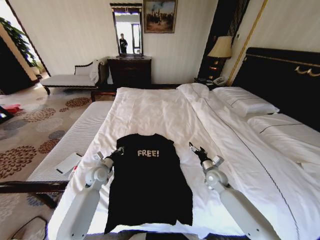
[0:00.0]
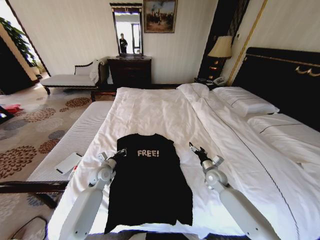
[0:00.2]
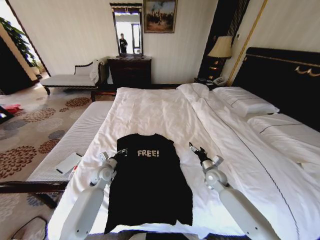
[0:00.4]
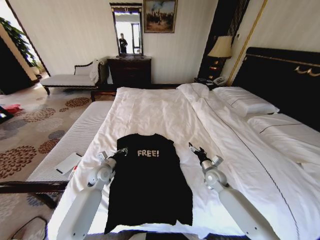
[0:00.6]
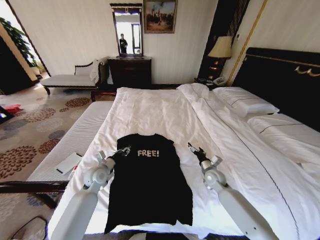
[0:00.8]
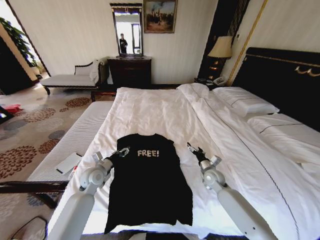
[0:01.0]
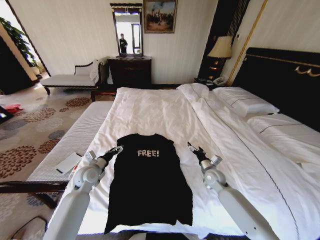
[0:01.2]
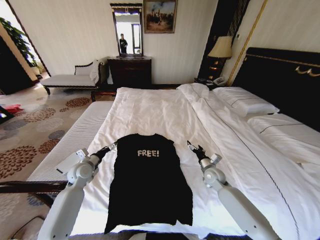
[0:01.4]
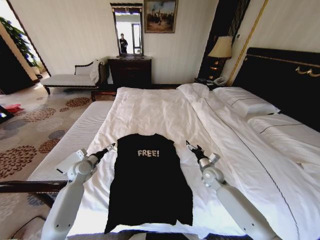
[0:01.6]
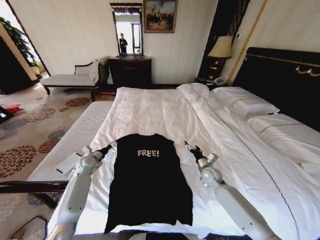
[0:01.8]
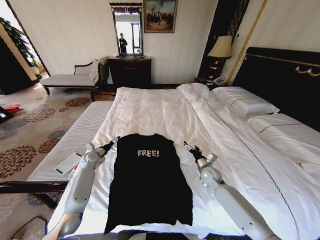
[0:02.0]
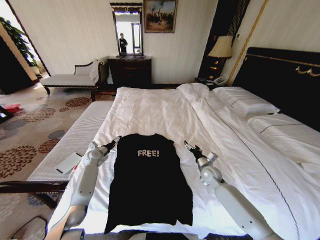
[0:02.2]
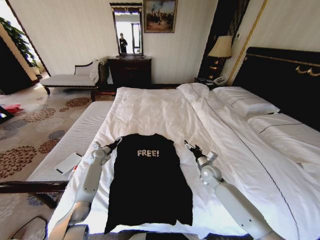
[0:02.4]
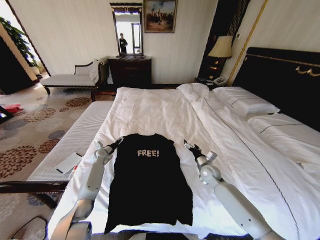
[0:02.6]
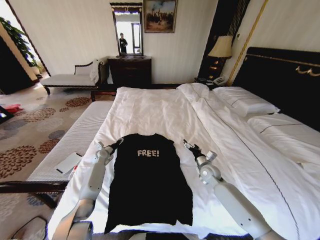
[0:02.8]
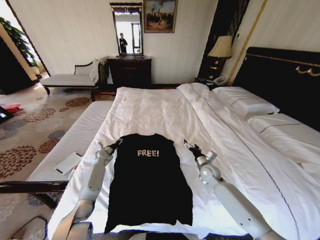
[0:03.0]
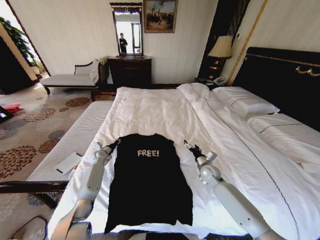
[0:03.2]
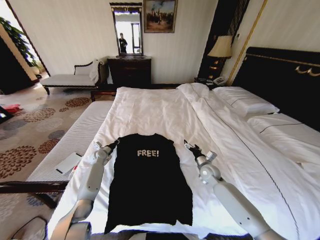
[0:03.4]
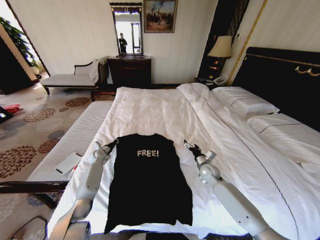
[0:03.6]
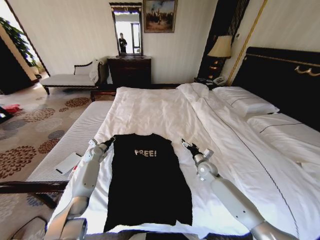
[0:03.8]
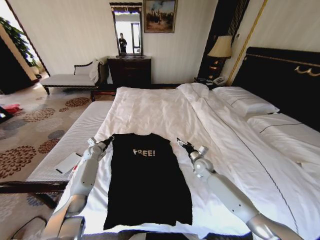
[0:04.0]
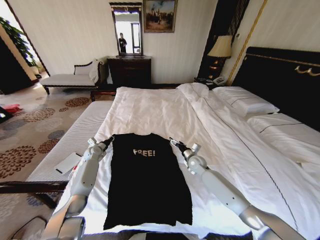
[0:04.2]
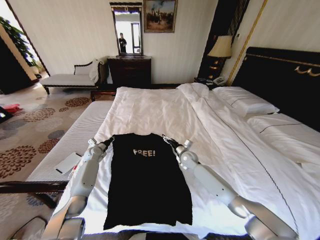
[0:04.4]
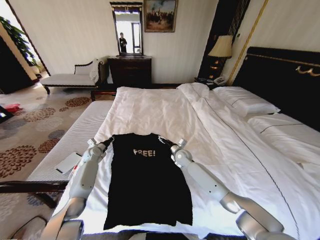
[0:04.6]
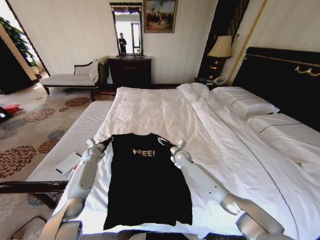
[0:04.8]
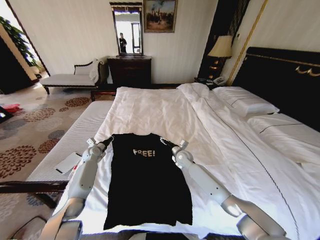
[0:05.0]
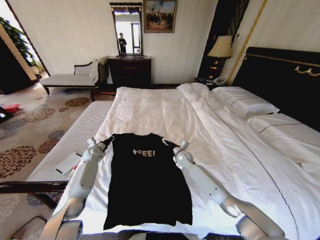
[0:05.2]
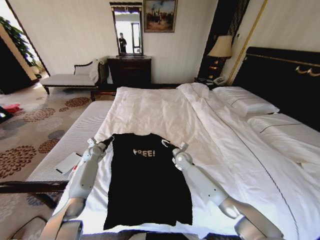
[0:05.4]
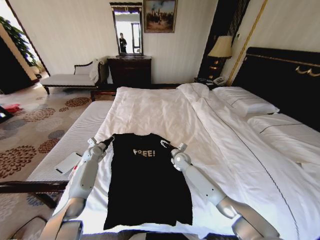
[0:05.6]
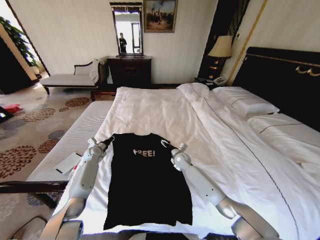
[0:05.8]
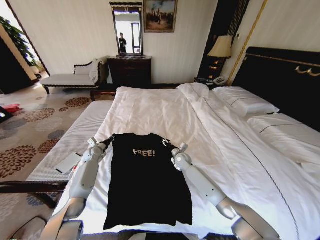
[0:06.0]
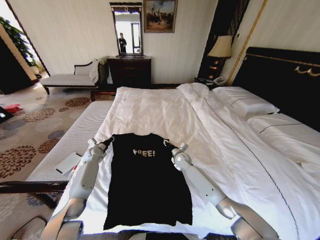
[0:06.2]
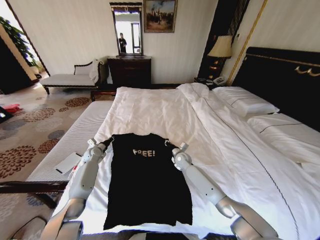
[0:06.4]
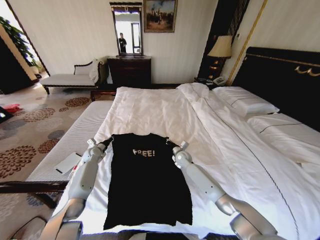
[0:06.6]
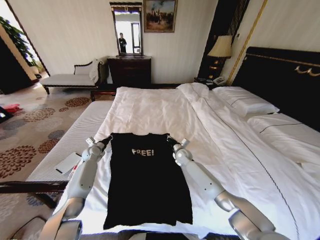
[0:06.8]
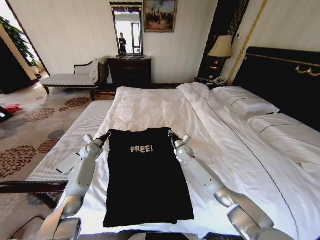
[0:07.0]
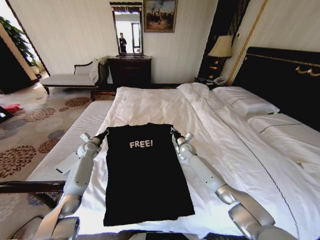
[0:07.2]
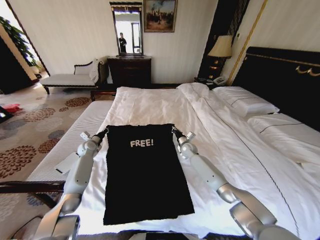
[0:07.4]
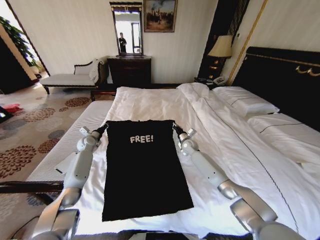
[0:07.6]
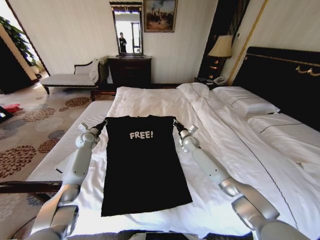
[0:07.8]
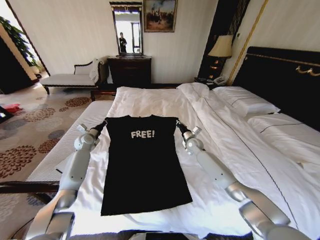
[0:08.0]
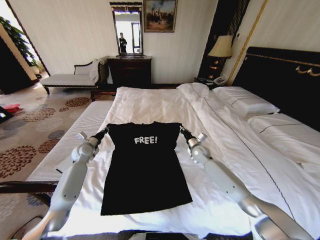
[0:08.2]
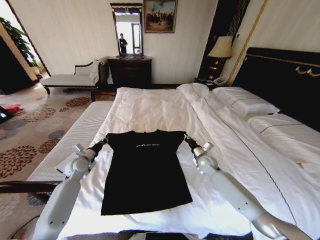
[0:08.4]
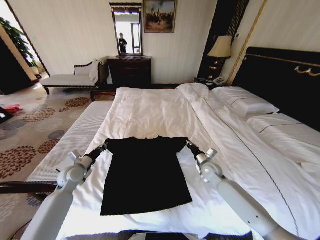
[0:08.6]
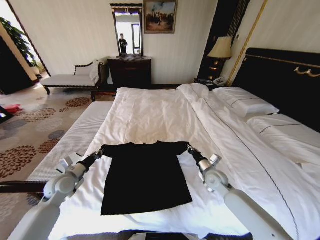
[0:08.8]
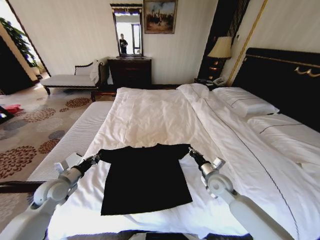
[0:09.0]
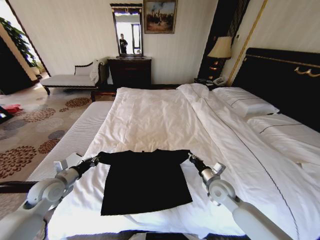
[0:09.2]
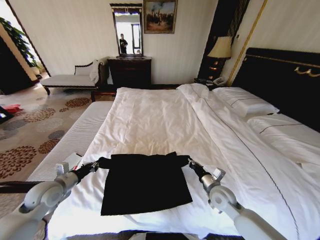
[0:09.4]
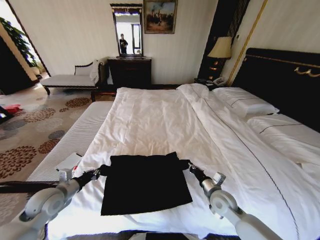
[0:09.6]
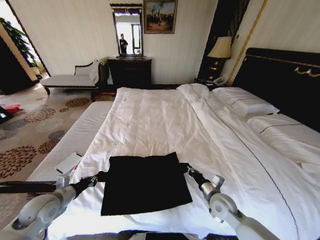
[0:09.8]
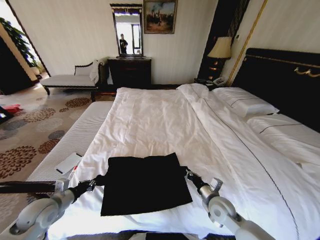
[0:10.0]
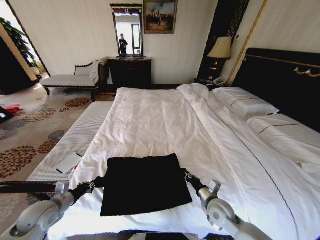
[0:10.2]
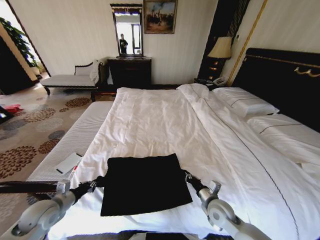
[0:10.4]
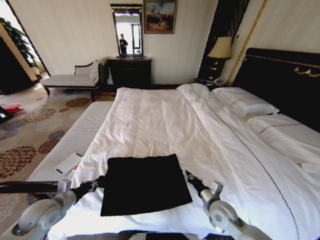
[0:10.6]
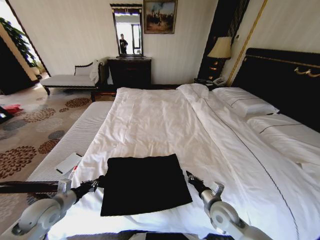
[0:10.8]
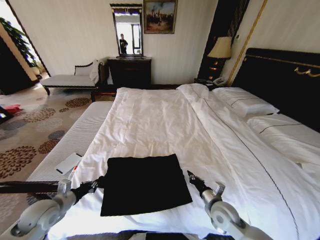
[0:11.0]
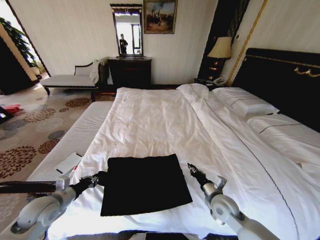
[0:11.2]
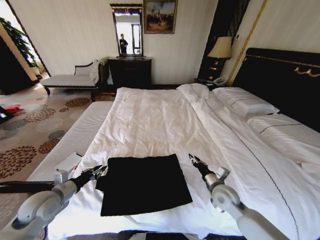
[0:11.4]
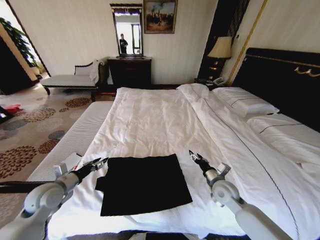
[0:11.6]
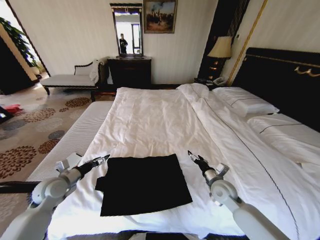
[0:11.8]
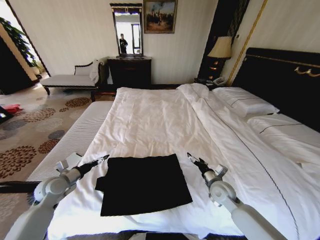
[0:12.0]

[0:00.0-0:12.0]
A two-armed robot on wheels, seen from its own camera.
Task of the whole recording: Fold the clothes on the bed.
0:00.0 to 0:01.6: The left gripper travels to the left by about 10 cm, and opens its fingers.
0:01.6 to 0:03.0: The left gripper heads forward and downward, covering approximately 15 cm, and closes its fingers.
0:03.0 to 0:04.4: The right gripper is displaced to the left and forward by roughly 10 cm, while the left gripper closes up.
0:04.4 to 0:06.0: The grippers make only small movements.
0:06.0 to 0:07.6: The right gripper goes some 10 cm forward and to the right, and closes; the left gripper shifts some 5 cm upward.
0:07.6 to 0:09.0: Both grippers move backward, roughly 25 cm.
0:09.0 to 0:10.4: Both grippers move backward, about 10 cm.
0:10.4 to 0:12.0: The grippers both shift forward by some 10 cm. The right gripper opens up. The left gripper opens.

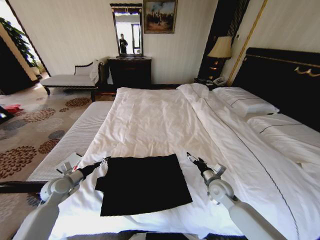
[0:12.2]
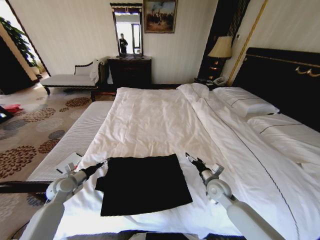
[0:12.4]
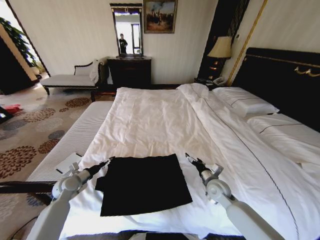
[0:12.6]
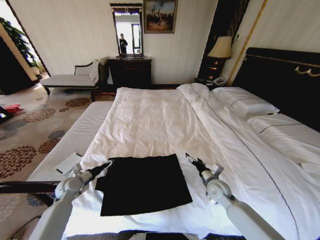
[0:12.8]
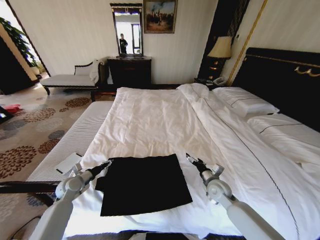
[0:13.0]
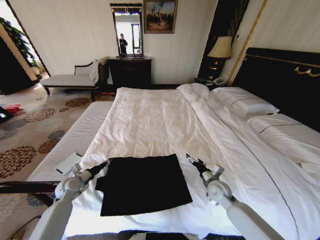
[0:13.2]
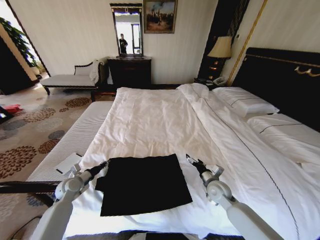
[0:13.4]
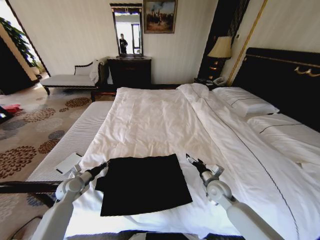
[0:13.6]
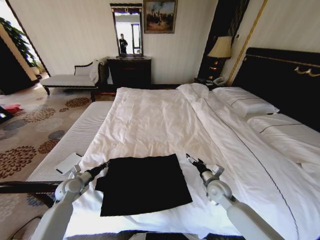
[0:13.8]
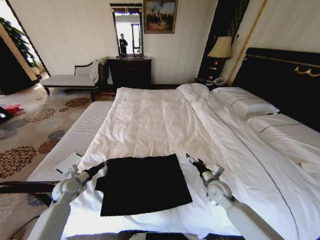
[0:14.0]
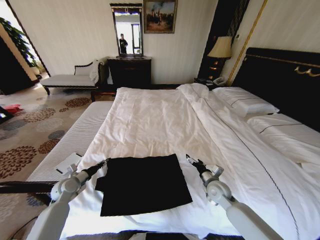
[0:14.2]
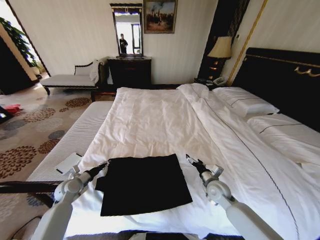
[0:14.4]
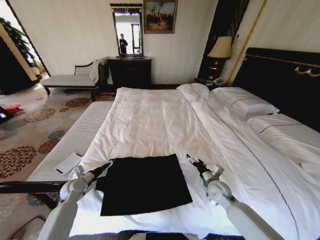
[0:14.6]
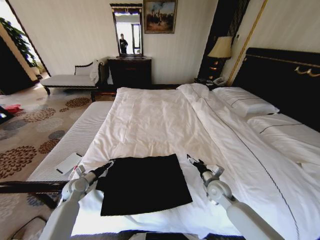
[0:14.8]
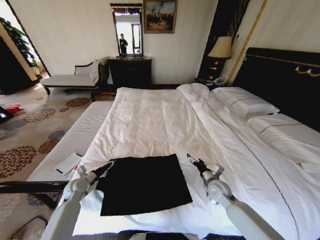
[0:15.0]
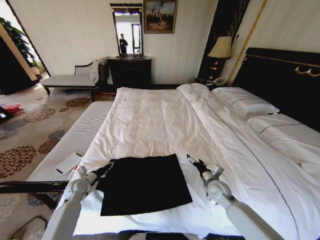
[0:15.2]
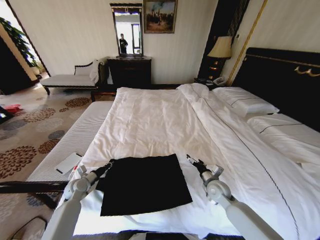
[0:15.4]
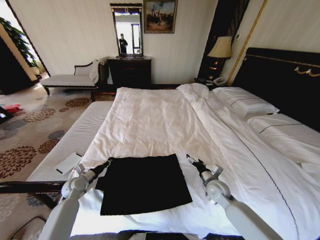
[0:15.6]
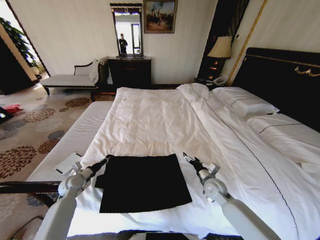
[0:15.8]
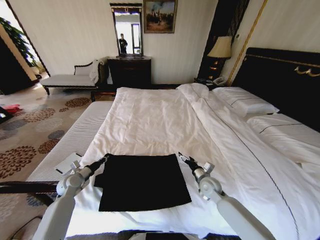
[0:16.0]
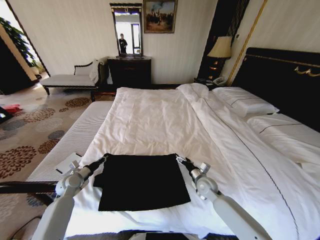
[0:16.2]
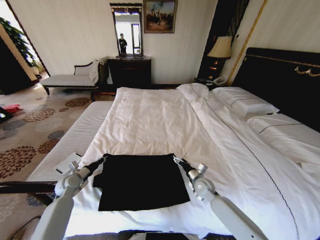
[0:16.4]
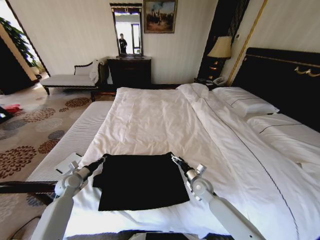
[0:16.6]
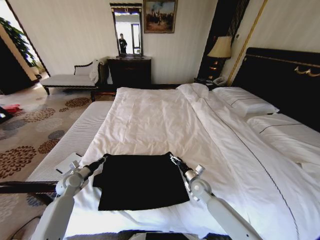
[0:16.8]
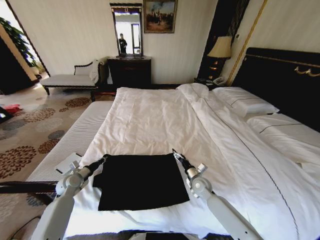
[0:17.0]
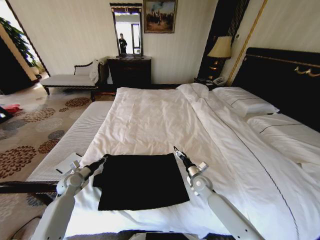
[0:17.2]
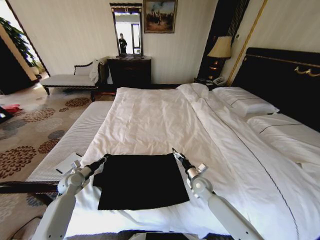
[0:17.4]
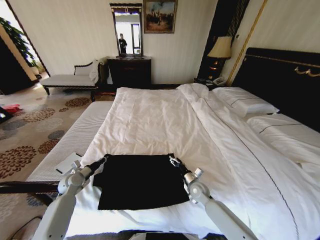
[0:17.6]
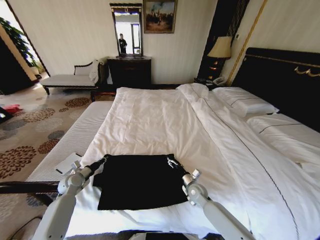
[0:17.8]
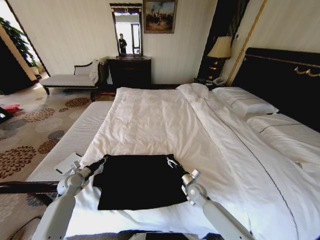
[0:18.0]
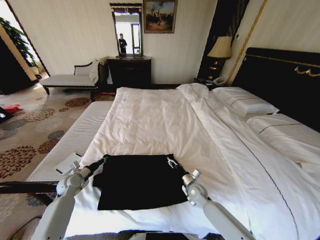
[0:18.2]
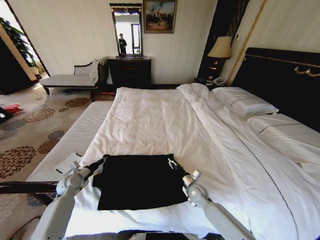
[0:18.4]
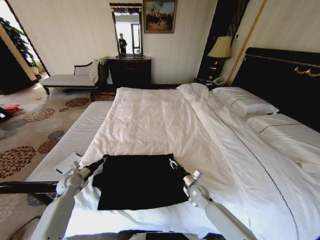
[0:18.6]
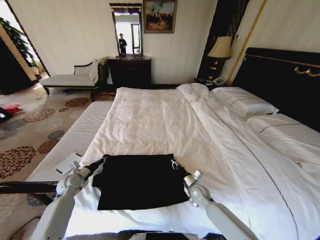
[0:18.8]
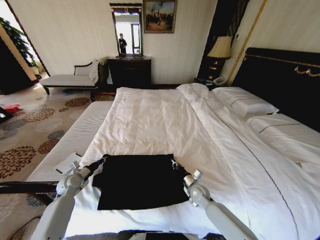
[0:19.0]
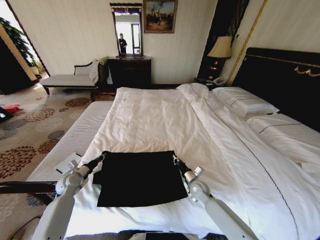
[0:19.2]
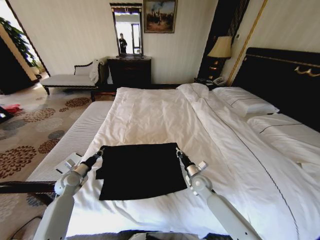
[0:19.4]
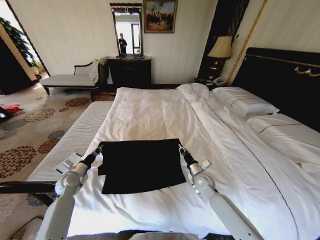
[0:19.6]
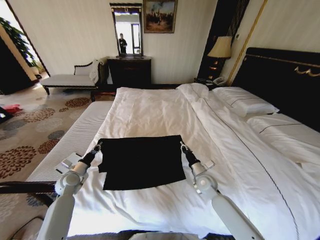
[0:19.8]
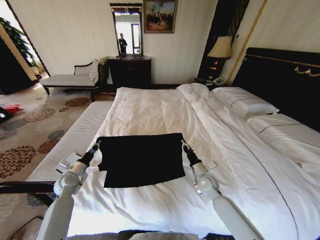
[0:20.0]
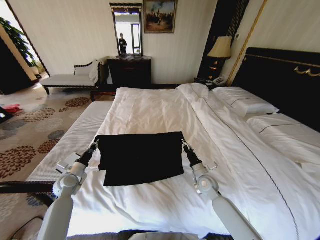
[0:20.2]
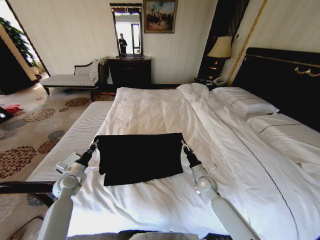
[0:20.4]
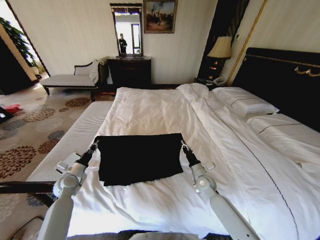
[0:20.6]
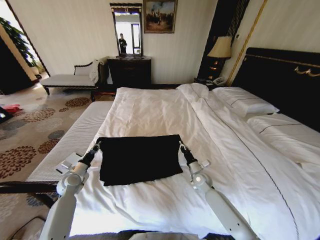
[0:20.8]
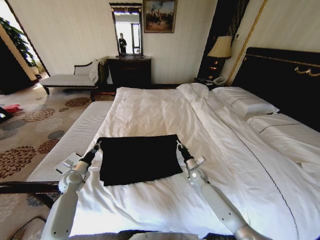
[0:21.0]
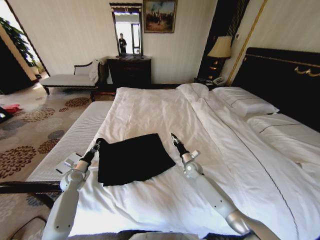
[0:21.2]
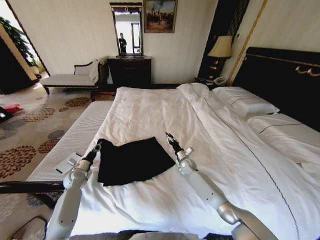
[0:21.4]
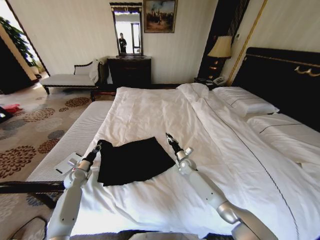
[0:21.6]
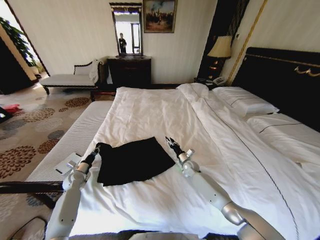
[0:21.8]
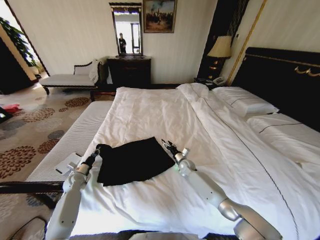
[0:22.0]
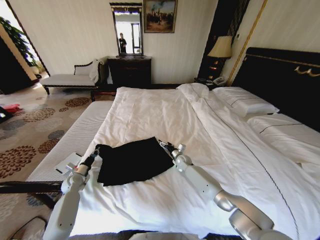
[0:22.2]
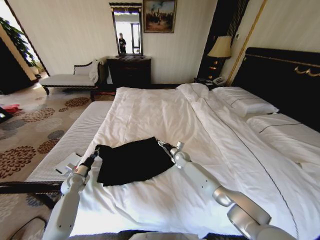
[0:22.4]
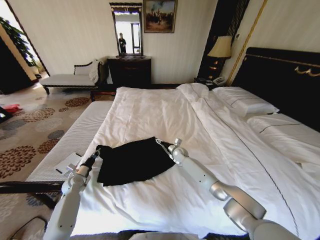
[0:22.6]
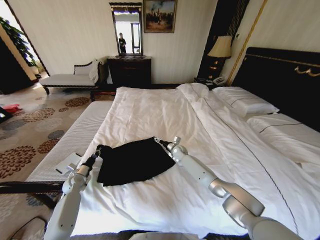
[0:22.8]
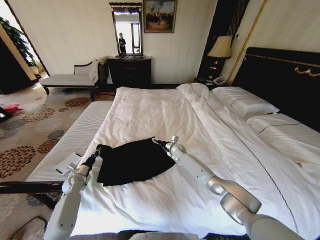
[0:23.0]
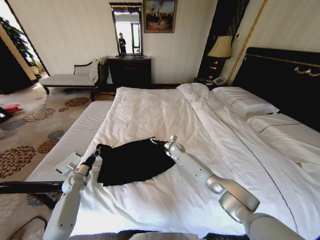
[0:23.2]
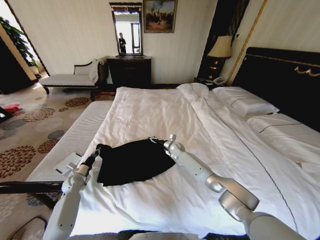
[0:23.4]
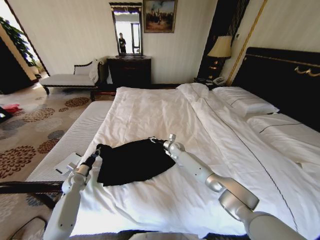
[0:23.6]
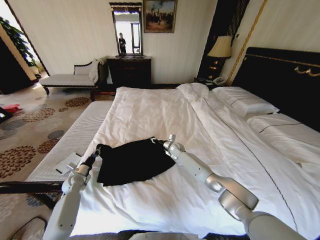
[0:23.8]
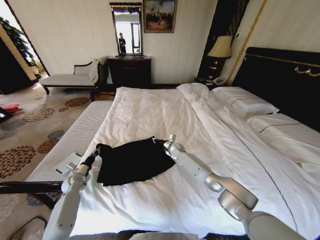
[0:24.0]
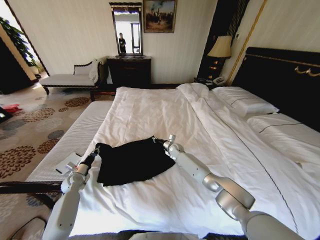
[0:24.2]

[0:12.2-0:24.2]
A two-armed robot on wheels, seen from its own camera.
Task of the whole recording: Fold the clothes on the bed.
0:12.2 to 0:13.8: The left gripper closes.
0:13.8 to 0:15.2: The left gripper opens, then closes again.
0:15.2 to 0:16.6: The right gripper goes about 5 cm to the left.
0:16.6 to 0:18.2: The grippers stay close to where they were, moving slightly.
0:18.2 to 0:19.8: The right gripper goes some 5 cm upward, and closes its fingers.
0:19.8 to 0:21.2: The right gripper heads forward and downward, covering about 10 cm.
0:21.2 to 0:22.6: The right gripper shifts approximately 10 cm forward and to the left, and opens.
0:22.6 to 0:24.2: The right gripper closes its fingers.
